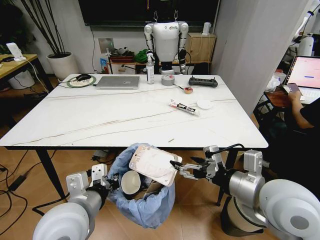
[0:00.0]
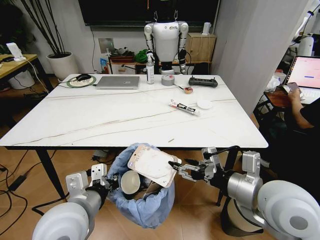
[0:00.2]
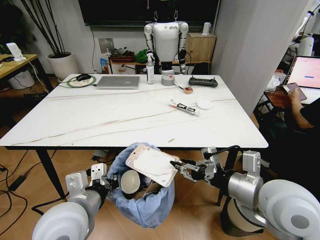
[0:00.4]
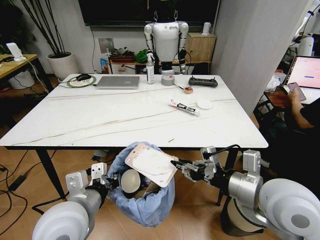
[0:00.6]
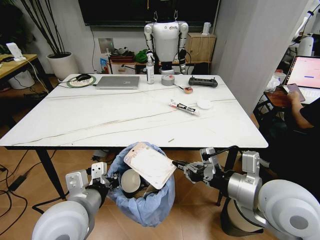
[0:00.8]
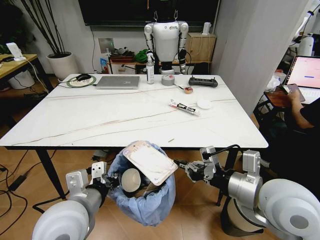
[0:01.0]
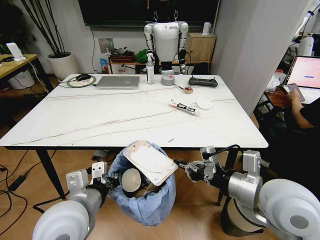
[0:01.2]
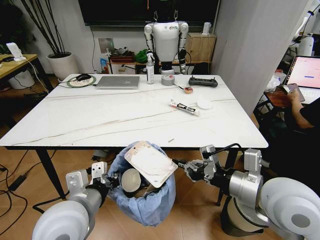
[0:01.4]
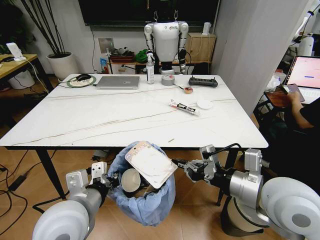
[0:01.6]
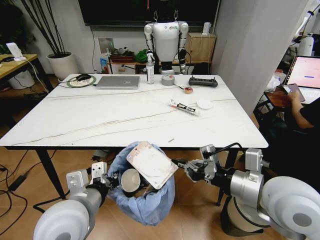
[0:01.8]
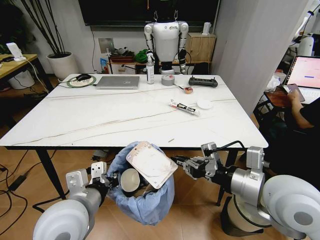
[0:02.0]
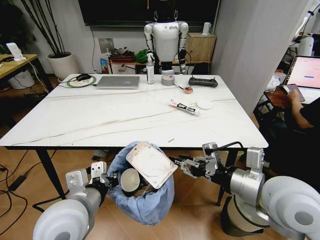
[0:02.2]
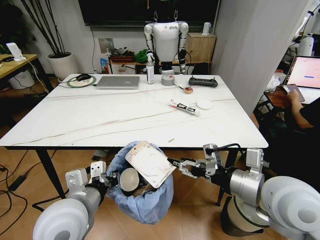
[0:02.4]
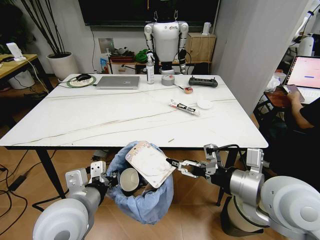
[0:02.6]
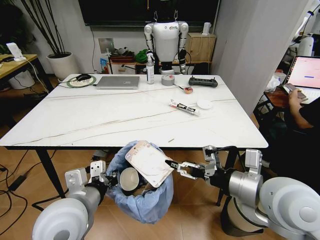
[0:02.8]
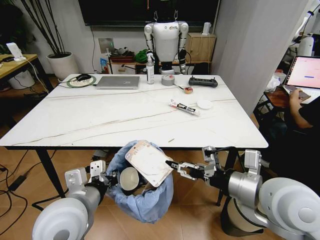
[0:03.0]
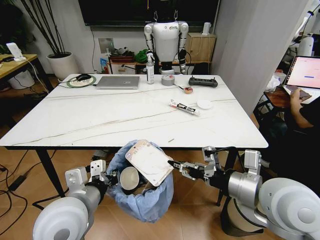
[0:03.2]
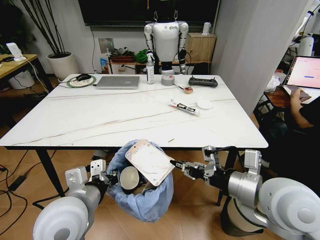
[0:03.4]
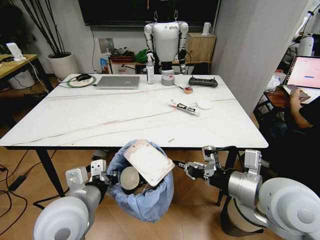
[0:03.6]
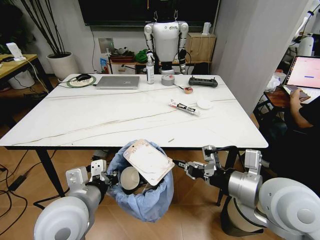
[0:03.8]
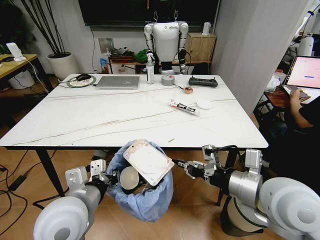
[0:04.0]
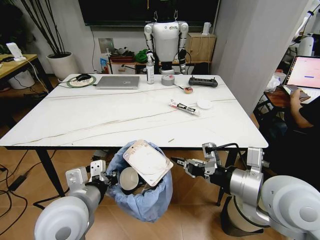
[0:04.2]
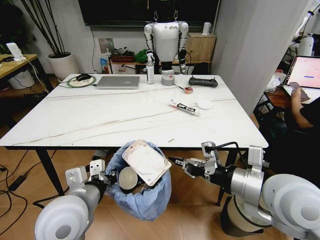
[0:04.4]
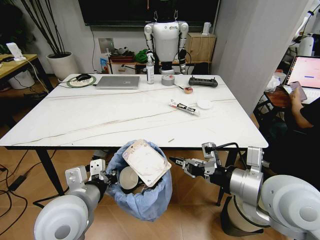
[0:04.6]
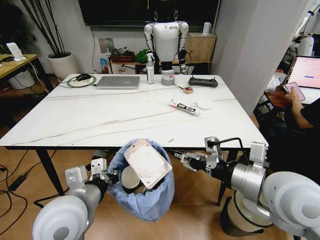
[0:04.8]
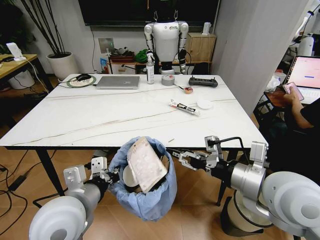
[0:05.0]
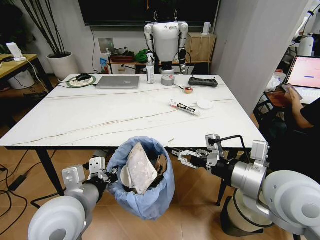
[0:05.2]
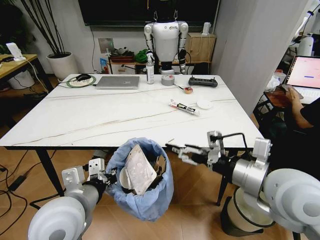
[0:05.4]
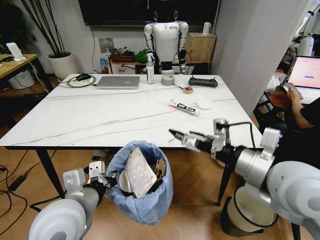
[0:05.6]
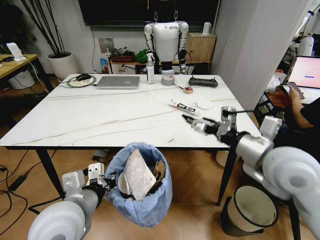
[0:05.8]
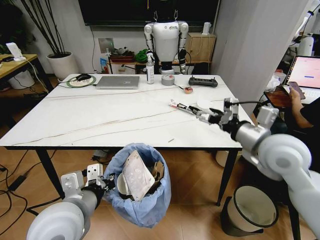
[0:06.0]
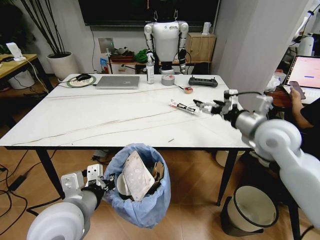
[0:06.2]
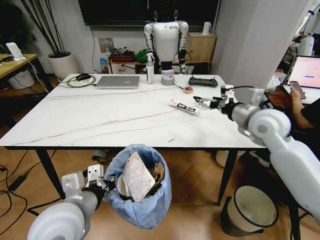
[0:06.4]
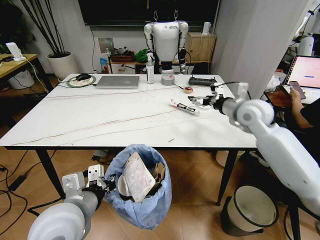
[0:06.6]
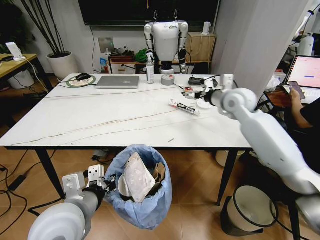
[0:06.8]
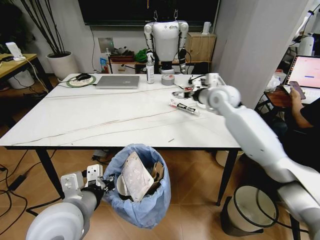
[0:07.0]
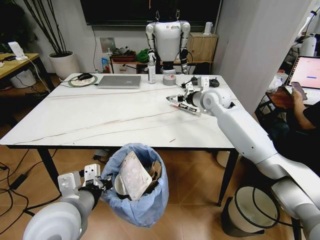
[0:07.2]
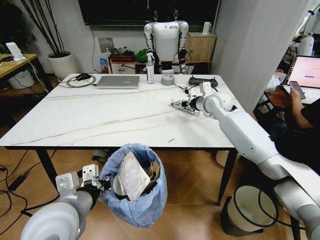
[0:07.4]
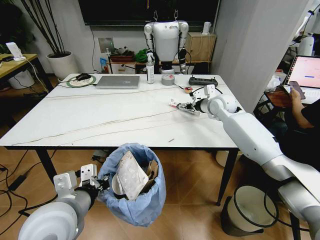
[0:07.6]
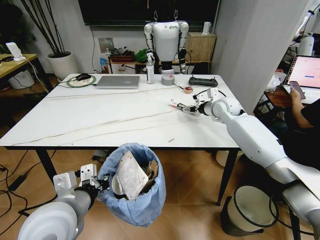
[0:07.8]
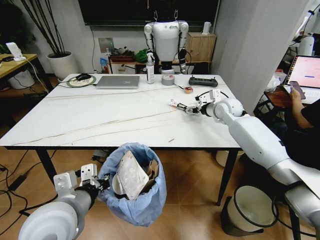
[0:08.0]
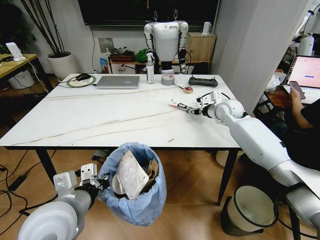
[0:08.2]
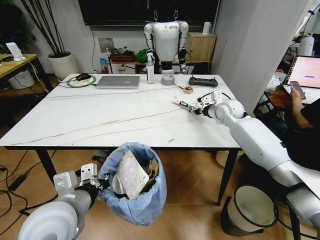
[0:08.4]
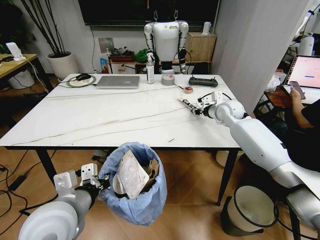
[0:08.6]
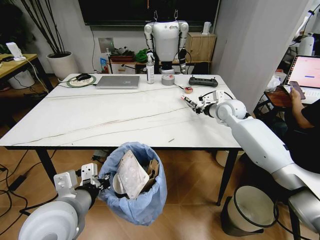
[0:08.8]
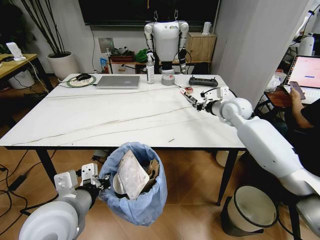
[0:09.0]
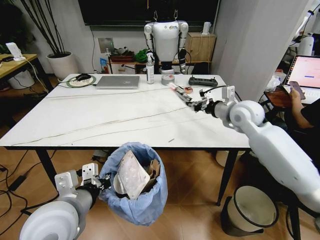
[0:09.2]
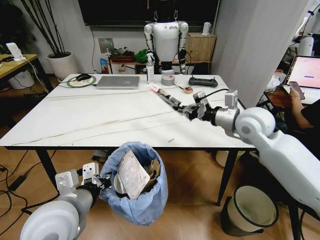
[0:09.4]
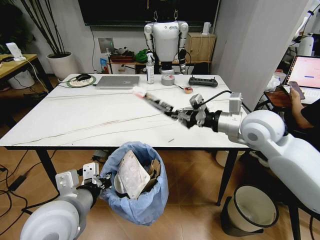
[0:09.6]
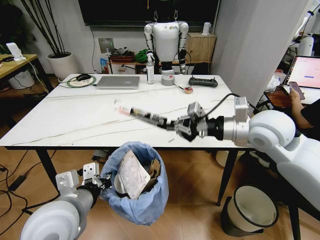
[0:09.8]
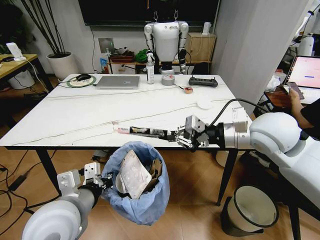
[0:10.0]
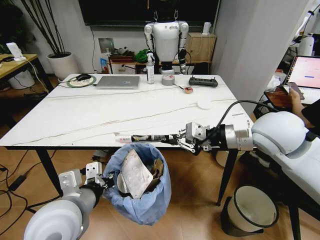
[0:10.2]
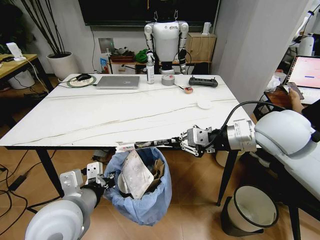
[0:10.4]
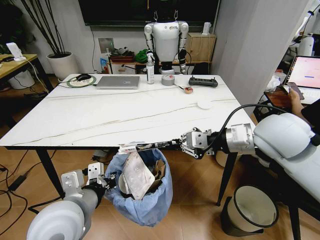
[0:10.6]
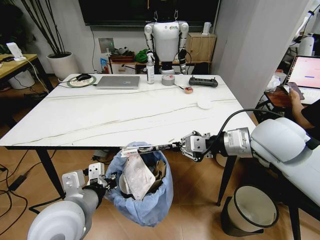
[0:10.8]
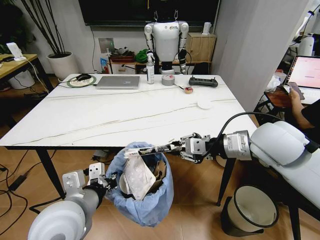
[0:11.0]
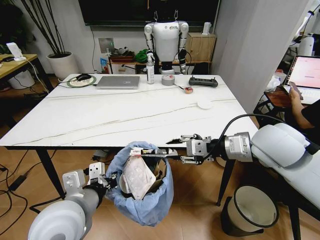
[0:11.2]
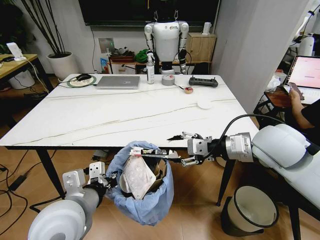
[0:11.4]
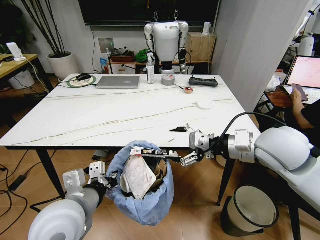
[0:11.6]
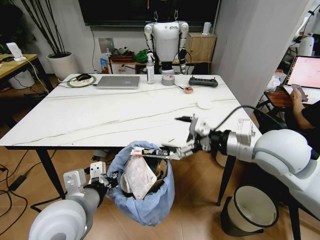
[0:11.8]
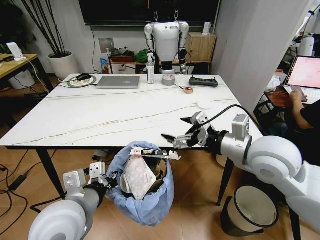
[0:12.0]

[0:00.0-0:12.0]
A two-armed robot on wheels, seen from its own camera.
Task of the whole recording: Pick up the trash bin and place the trash from the table into it.
0:00.0 to 0:01.6: The right gripper closes up.
0:01.6 to 0:03.0: The right gripper opens its fingers.
0:03.0 to 0:04.4: The right gripper closes its fingers.
0:04.4 to 0:06.0: The right gripper moves forward, roughly 10 cm, and opens.
0:06.0 to 0:07.6: The right gripper shifts some 30 cm forward.
0:07.6 to 0:09.0: The right gripper moves some 5 cm, and closes its fingers.
0:09.0 to 0:10.4: The right gripper travels backward and upward by some 25 cm.
0:10.4 to 0:12.0: The right gripper changes place by some 5 cm, and opens up.

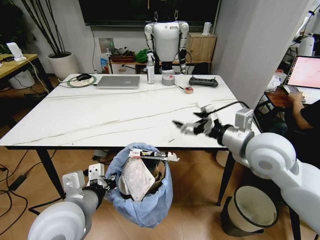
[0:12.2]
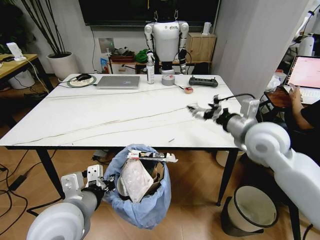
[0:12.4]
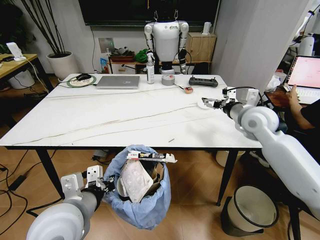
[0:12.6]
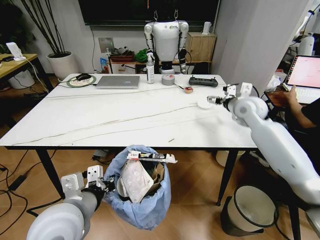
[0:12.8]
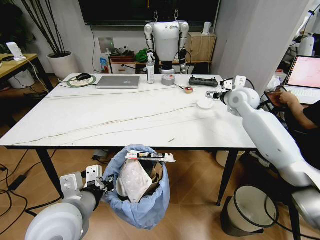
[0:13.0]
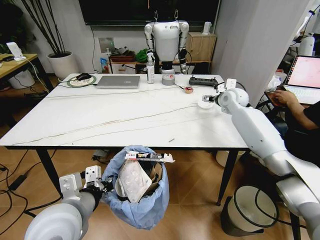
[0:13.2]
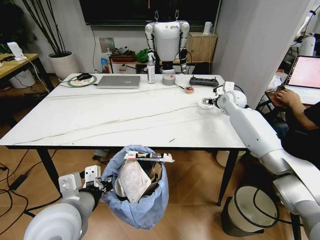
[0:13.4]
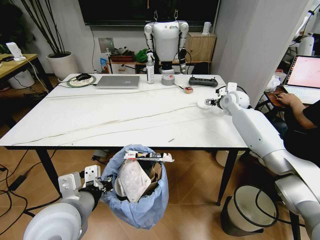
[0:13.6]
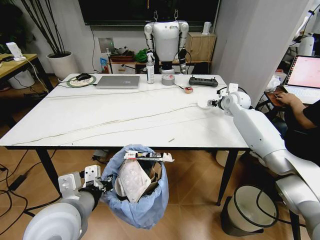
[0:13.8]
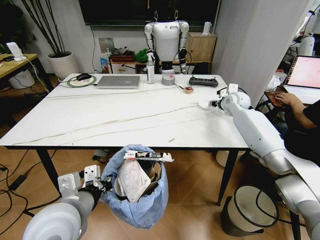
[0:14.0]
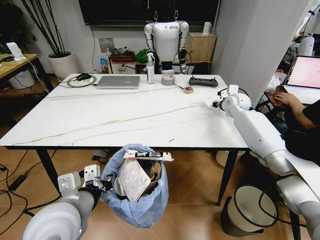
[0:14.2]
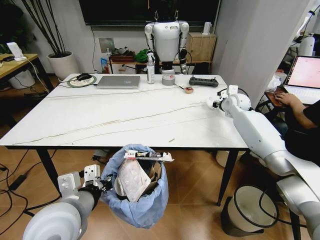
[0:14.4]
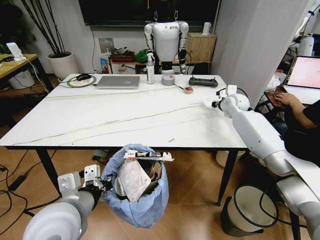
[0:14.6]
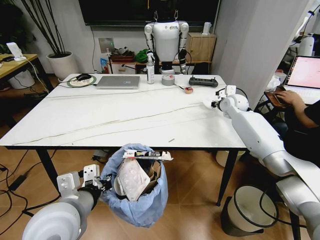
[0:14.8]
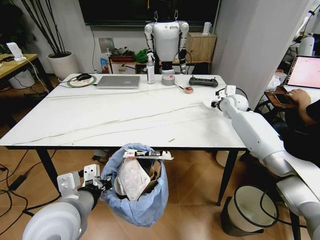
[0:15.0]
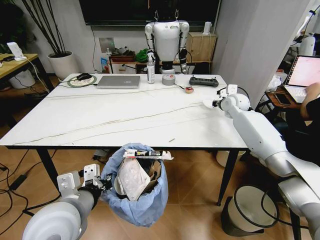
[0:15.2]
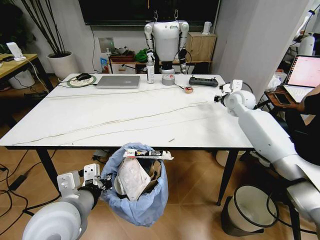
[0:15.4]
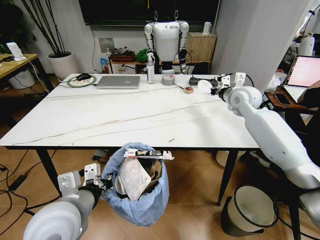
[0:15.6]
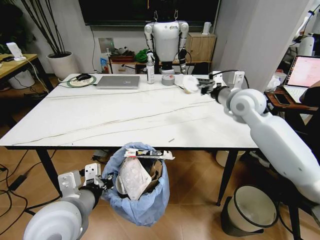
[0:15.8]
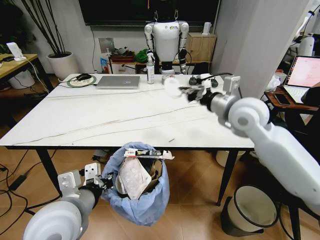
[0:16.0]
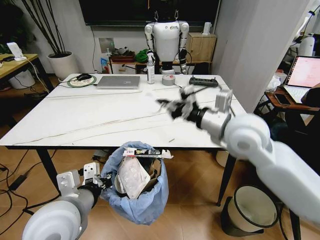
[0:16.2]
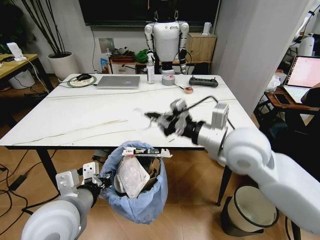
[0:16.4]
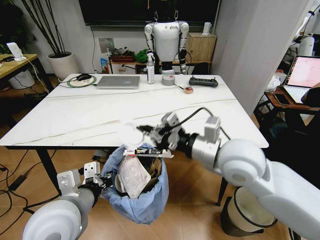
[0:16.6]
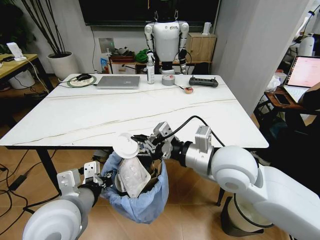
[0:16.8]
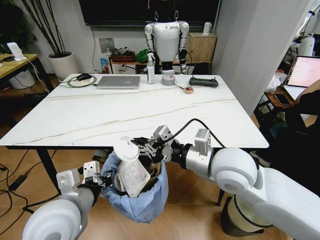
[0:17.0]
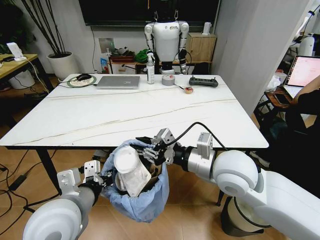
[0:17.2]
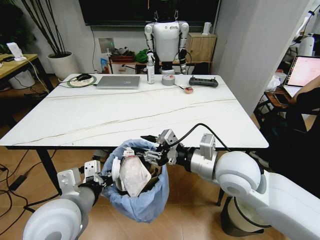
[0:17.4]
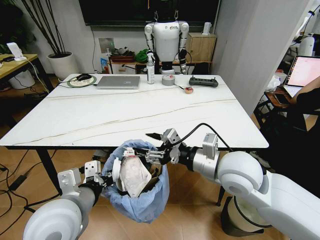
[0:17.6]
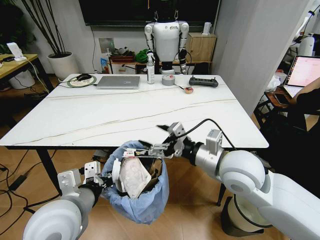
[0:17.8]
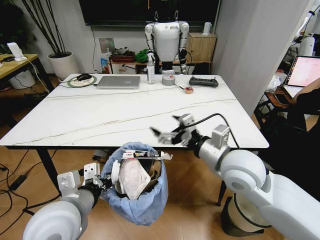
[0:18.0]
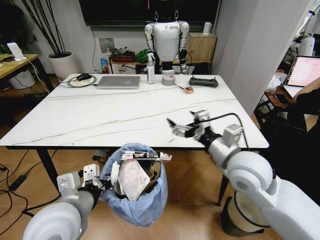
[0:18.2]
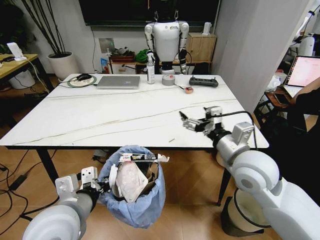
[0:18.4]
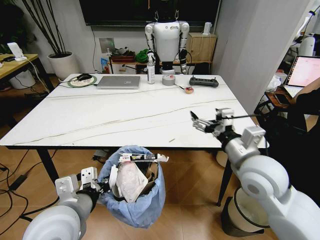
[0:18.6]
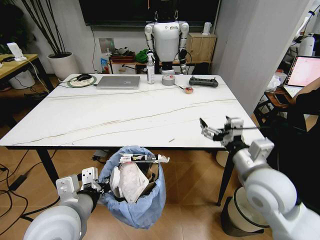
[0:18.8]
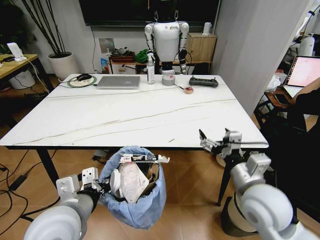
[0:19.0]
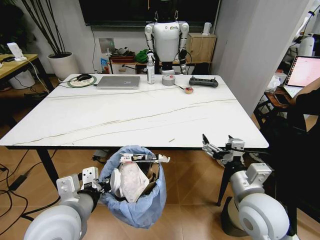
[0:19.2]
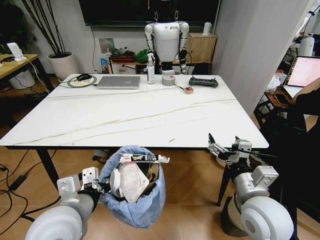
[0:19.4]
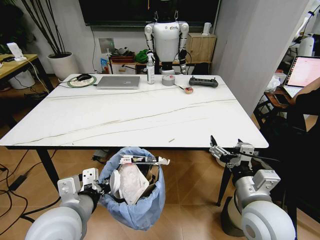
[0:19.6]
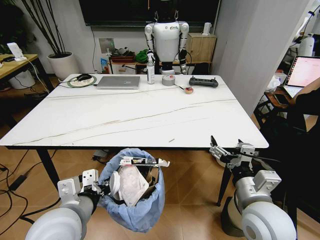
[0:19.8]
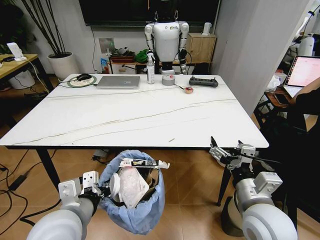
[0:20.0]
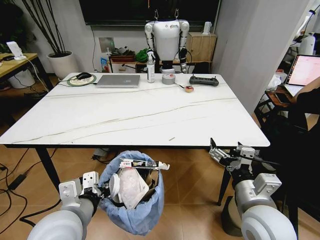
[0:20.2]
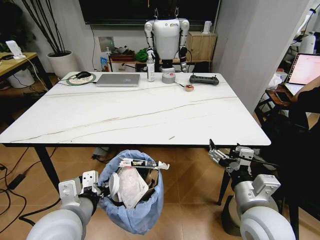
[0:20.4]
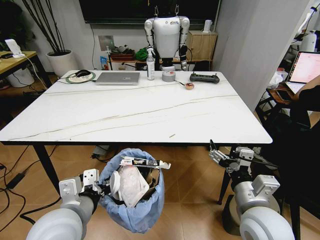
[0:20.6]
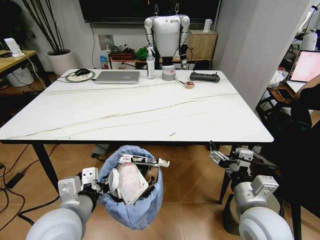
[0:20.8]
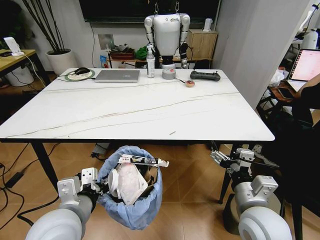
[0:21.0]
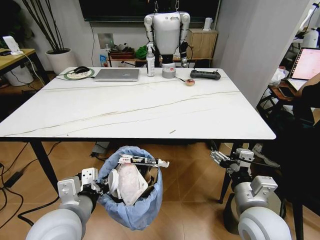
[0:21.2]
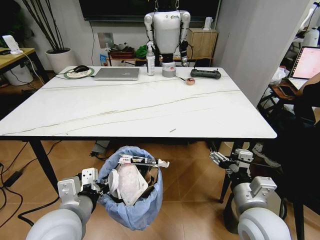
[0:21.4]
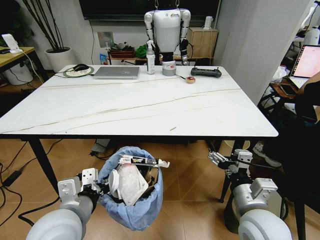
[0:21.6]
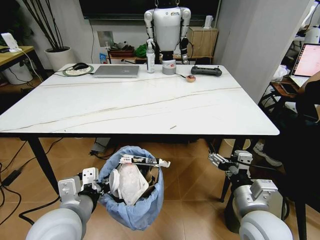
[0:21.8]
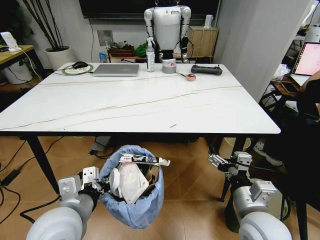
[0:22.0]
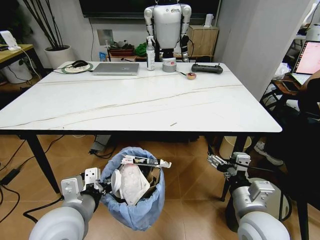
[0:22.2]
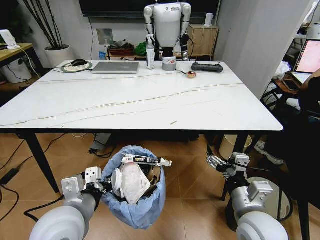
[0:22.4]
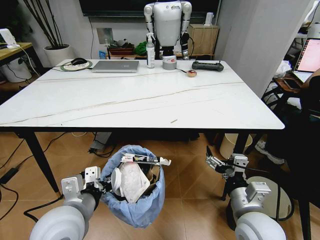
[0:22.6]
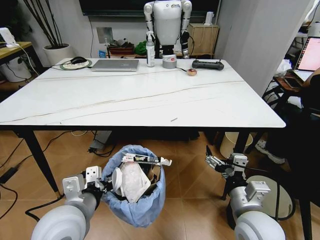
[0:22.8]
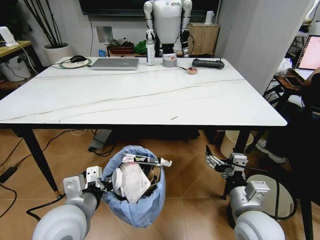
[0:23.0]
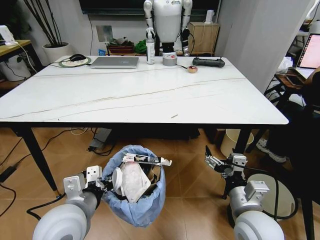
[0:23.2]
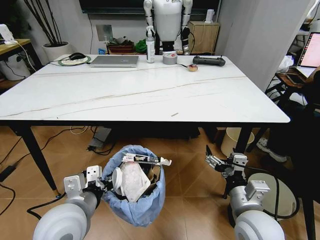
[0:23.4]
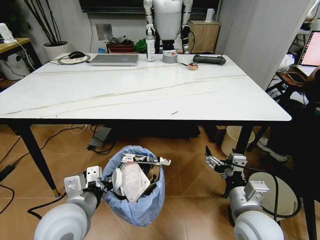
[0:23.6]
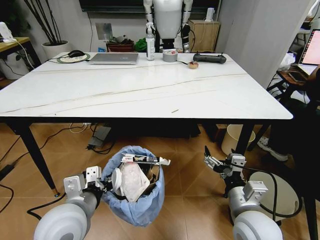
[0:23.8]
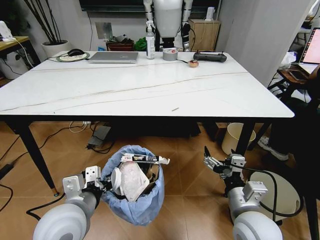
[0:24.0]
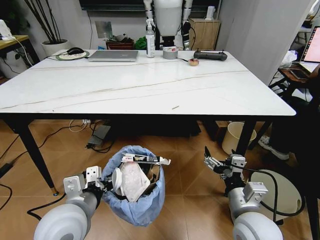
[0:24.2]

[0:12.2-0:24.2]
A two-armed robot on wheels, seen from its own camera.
Task of the whole recording: Pick up the trash bin and place the trash from the table into it.
0:12.2 to 0:13.8: The right gripper is displaced forward by approximately 30 cm.
0:13.8 to 0:15.2: The right gripper closes.
0:15.2 to 0:16.6: The right gripper heads backward and to the left, covering roughly 35 cm.
0:16.6 to 0:18.2: The right gripper ends up roughly 5 cm from where it was, and opens its fingers.
0:18.2 to 0:19.8: The right gripper travels backward and downward by approximately 10 cm.
